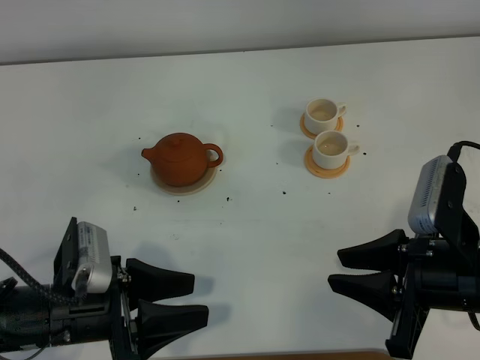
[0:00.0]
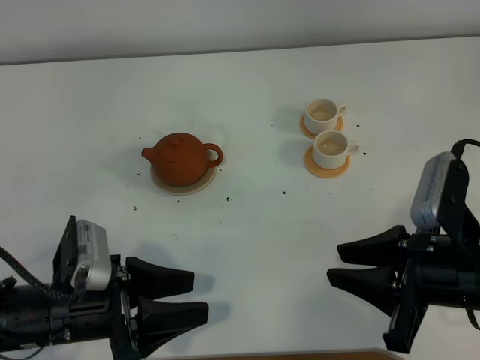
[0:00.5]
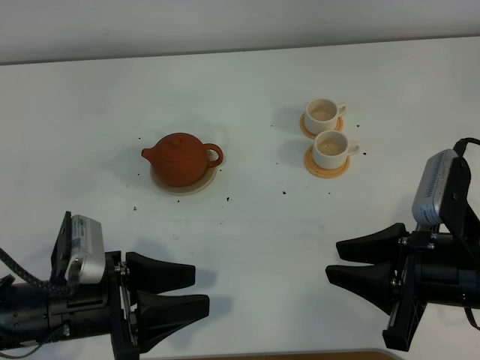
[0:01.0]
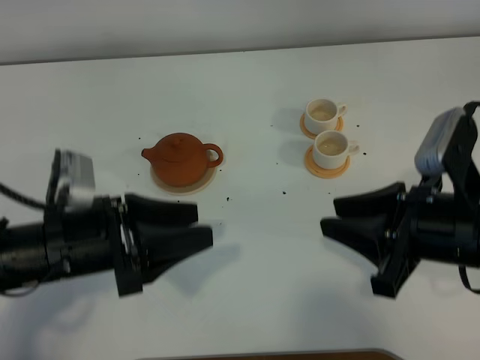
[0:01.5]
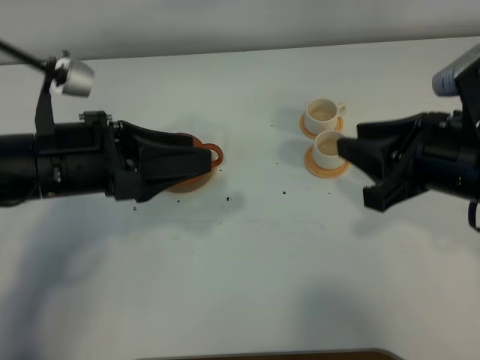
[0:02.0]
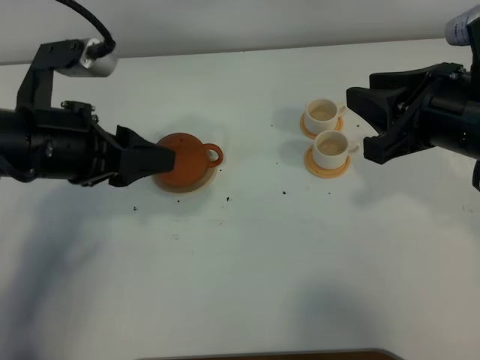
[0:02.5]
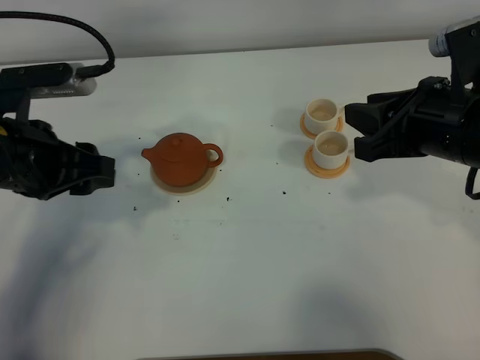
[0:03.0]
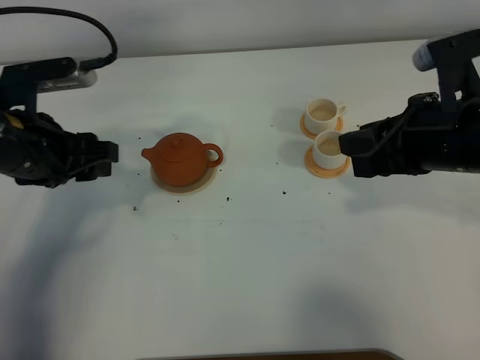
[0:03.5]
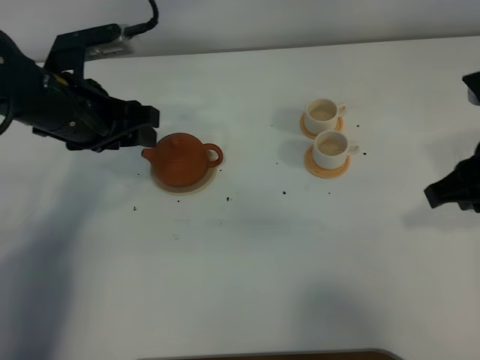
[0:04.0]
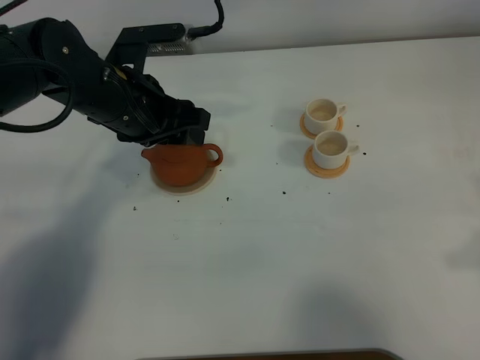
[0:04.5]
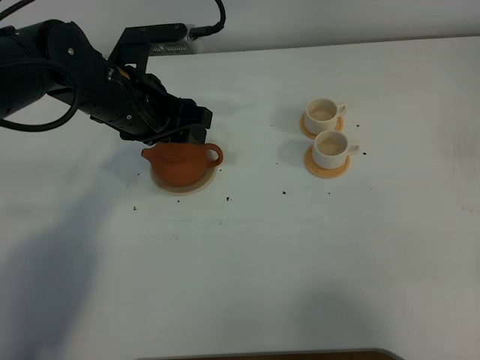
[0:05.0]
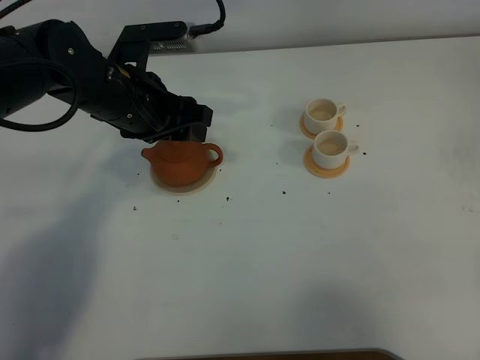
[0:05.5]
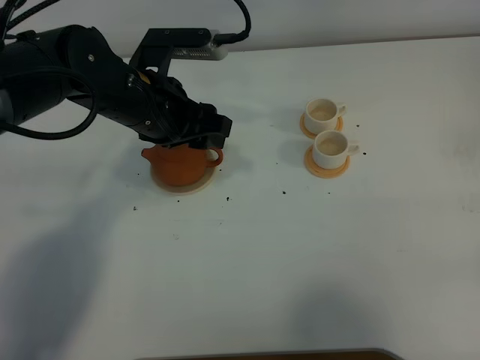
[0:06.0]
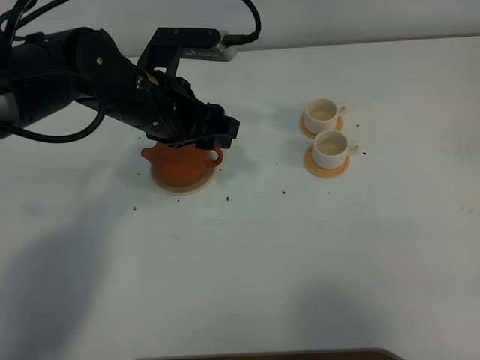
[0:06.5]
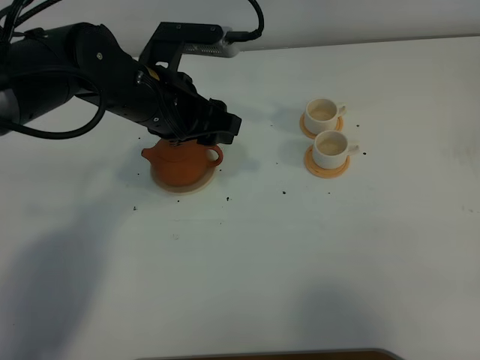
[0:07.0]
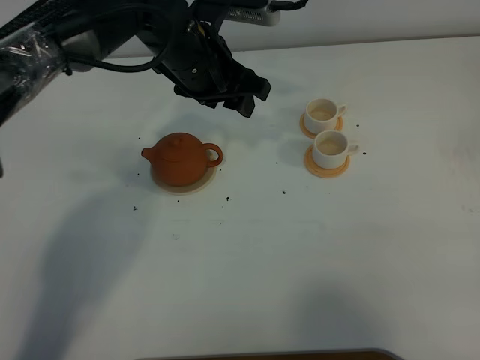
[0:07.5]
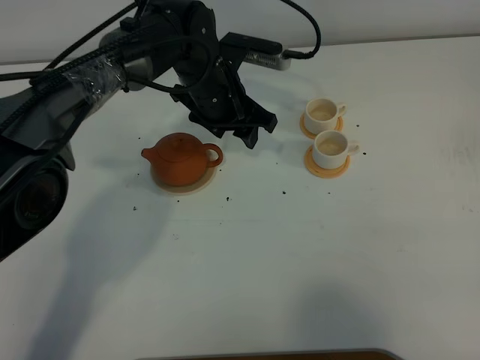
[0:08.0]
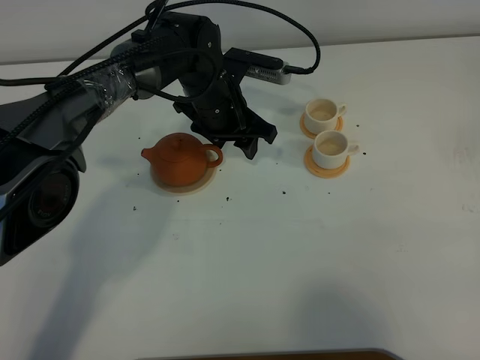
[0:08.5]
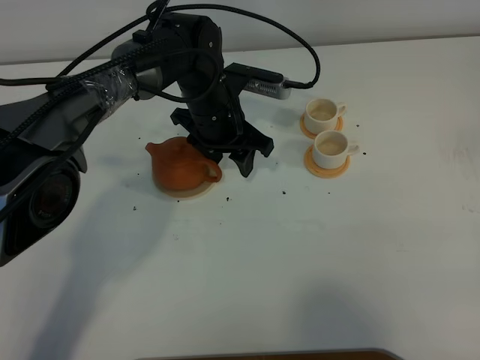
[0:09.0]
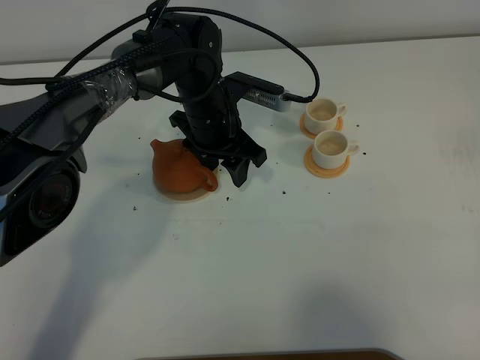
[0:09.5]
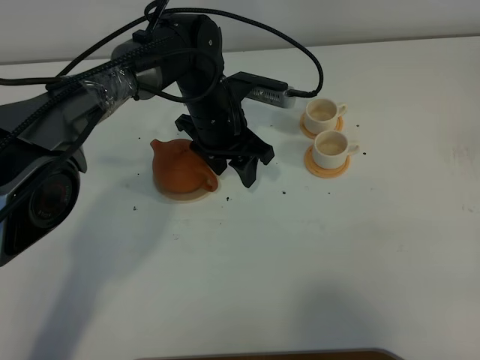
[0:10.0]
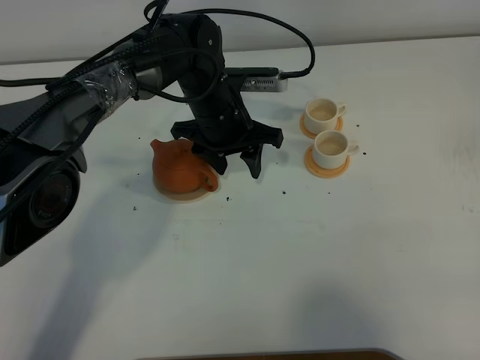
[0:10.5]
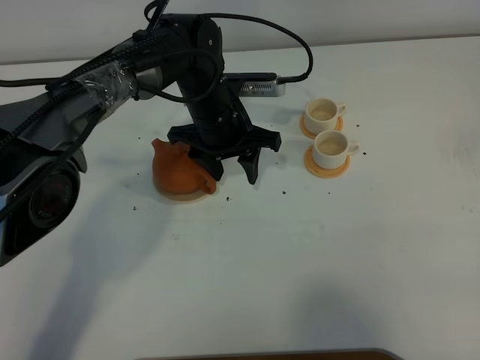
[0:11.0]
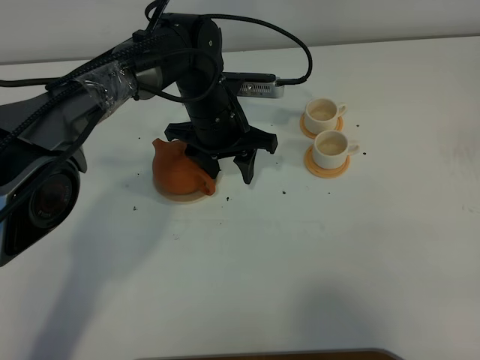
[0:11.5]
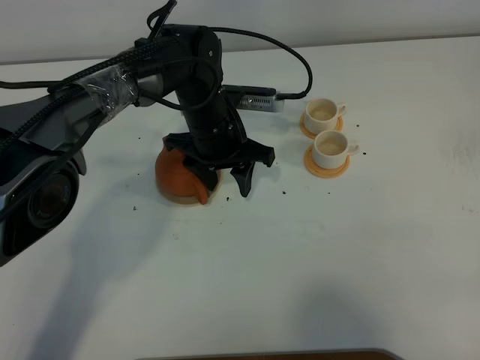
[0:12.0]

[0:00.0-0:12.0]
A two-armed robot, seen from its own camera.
Task of the whole recording: grasp the brown teapot and pour the tea into the two white teacups one by one, put the brown teapot back in its original place.
0.0 to 2.0 s: The right gripper moves upward and forward, about 10 cm, while the left gripper shifts approximately 15 cm upward and forward.
2.0 to 4.0 s: The left gripper goes some 10 cm forward.
4.0 to 6.0 s: The left gripper travels to the right by approximately 10 cm, while the right gripper moves backward and to the right, roughly 20 cm.
6.0 to 8.0 s: The left gripper moves forward, to the right and downward, roughly 15 cm.
8.0 to 10.0 s: The grippers move only a little.
10.0 to 12.0 s: The grippers move only a little.

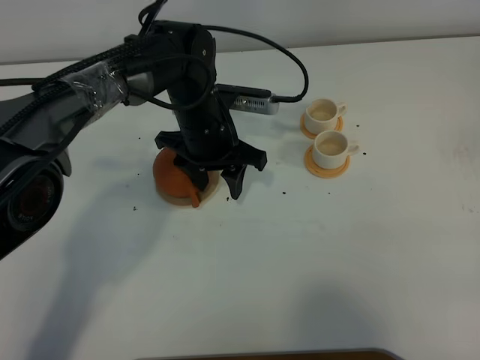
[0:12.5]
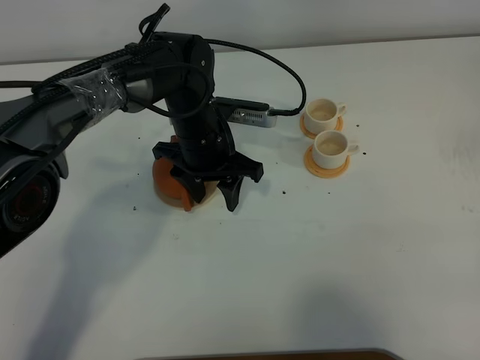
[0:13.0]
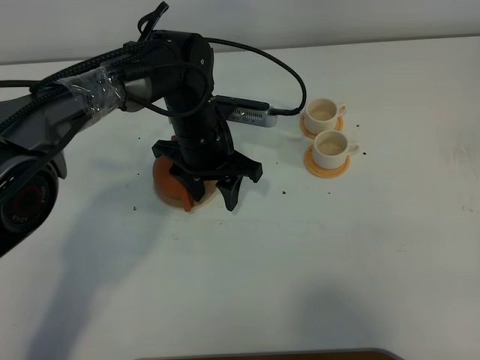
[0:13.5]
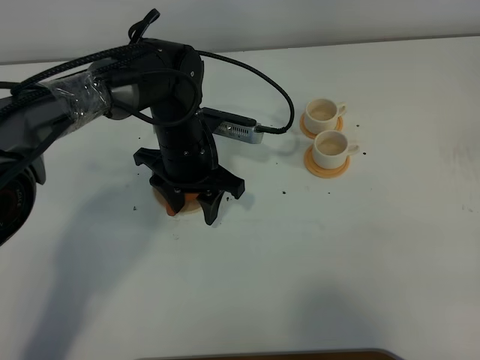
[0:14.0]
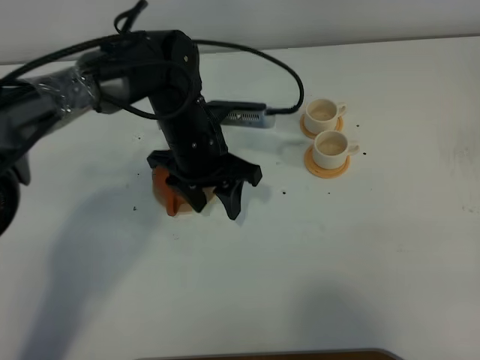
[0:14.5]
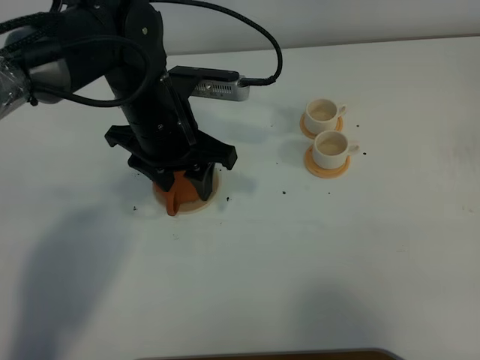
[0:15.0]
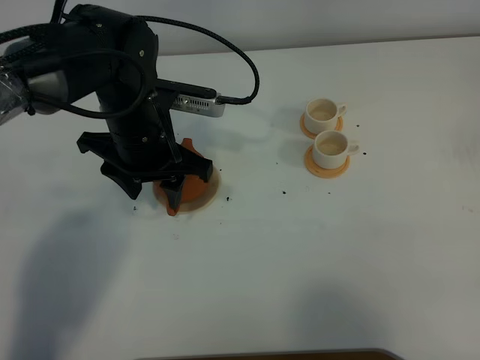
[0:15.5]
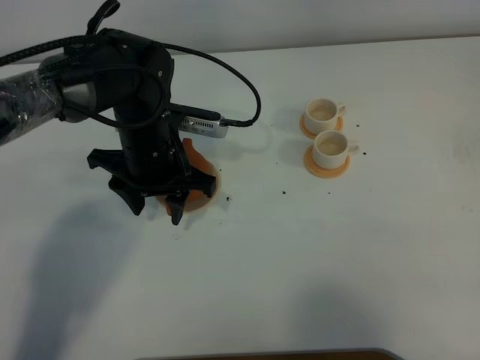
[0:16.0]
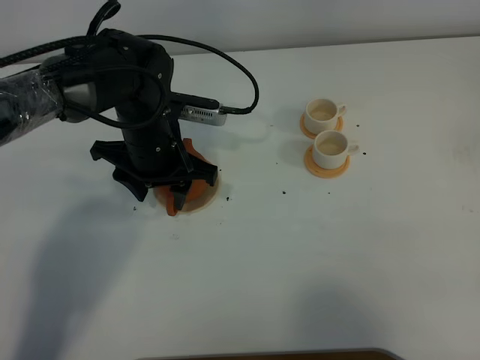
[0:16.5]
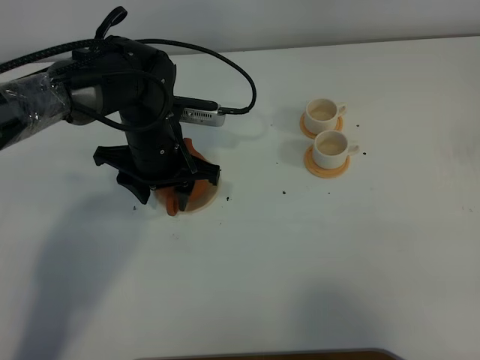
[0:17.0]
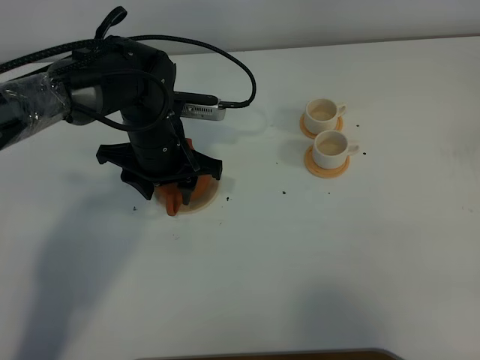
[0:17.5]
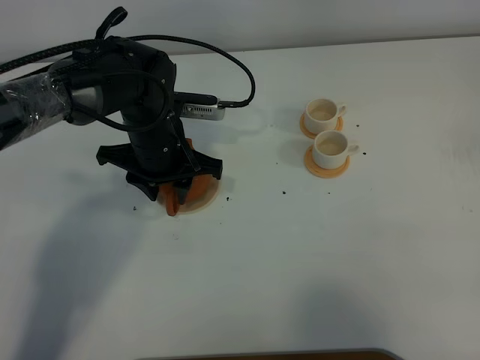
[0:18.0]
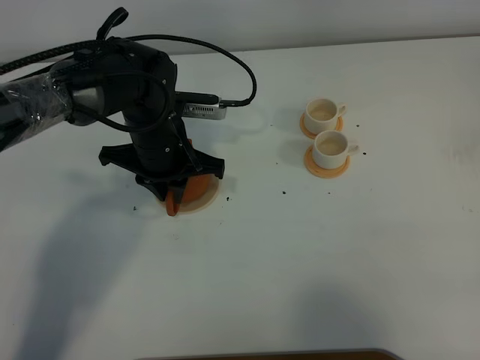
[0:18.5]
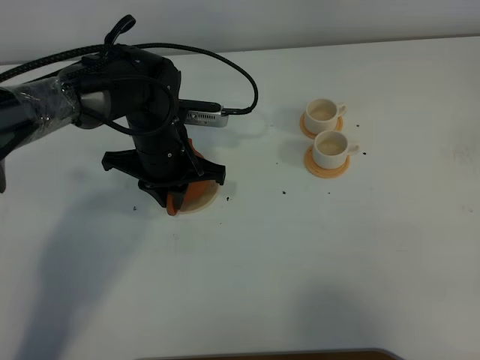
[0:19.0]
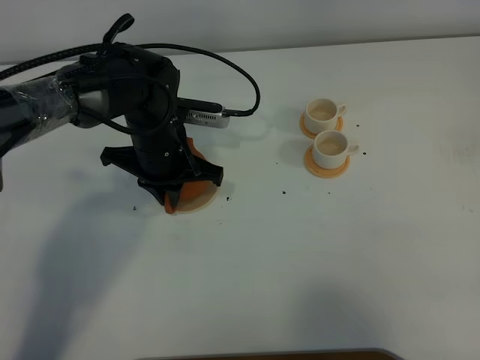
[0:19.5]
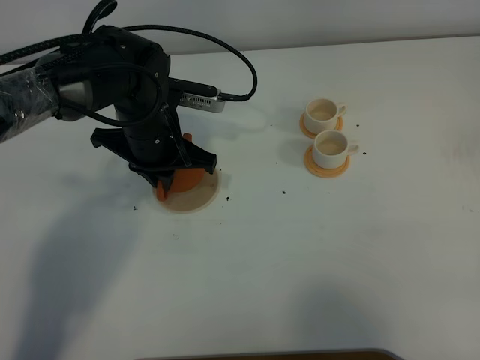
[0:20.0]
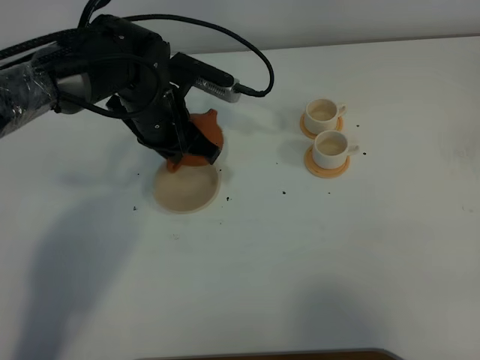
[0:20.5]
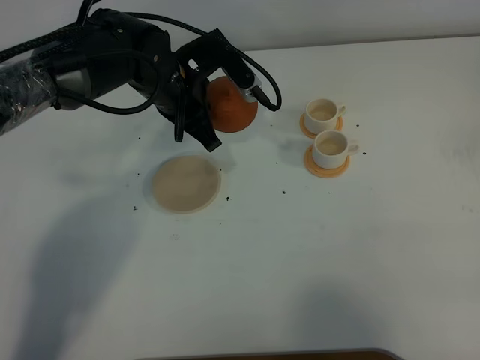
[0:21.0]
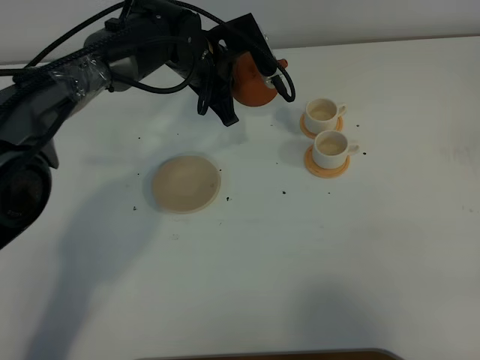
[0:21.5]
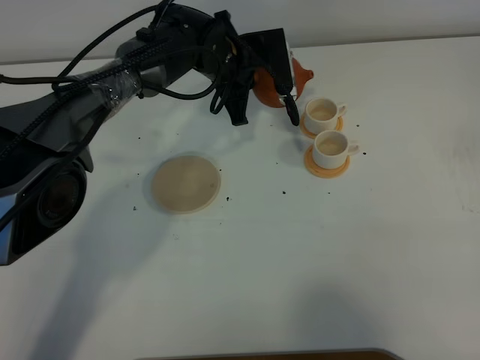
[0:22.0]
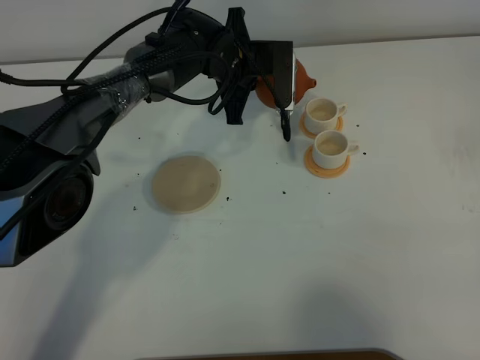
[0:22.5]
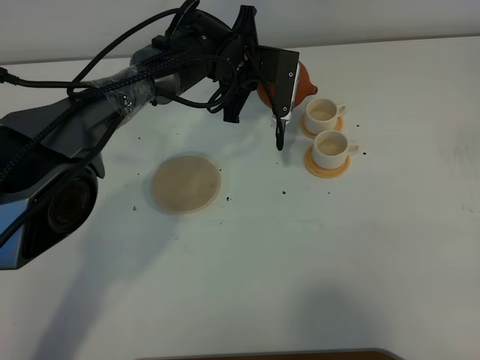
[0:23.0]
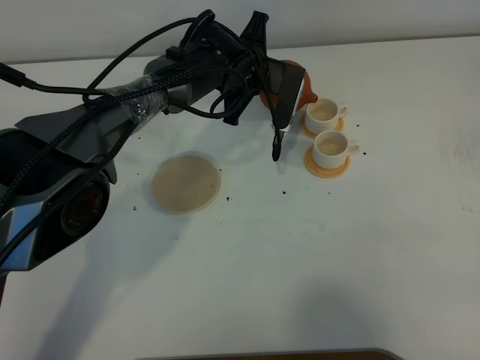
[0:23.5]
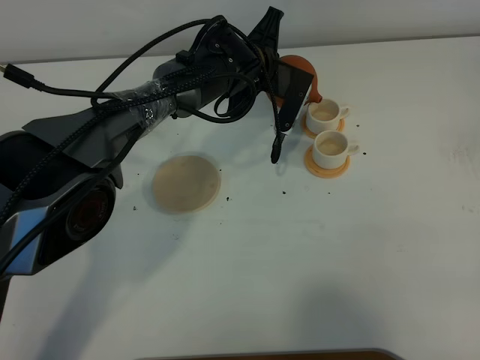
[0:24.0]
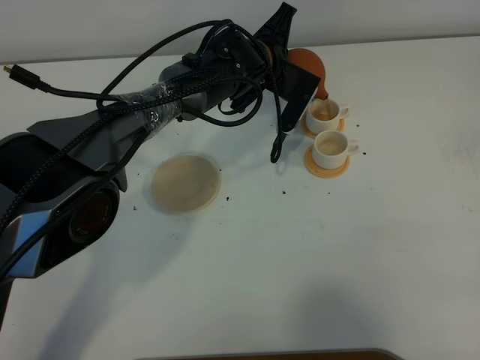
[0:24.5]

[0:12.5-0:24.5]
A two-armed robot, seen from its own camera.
Task of the whole recording: grasp the brown teapot and pour the tea into the two white teacups one by one, put the brown teapot back in its original place.
Step, 12.5 to 20.0 s: Pick up the teapot with the left gripper.
12.5 to 14.5 s: The grippers stay close to where they were, moving slightly.
16.5 to 18.5 s: The left gripper closes.
20.5 to 22.5 s: The left gripper moves forward and to the right, roughly 10 cm.

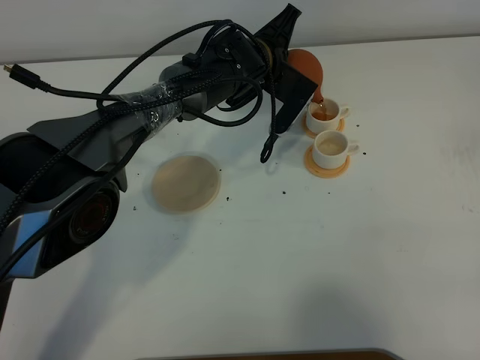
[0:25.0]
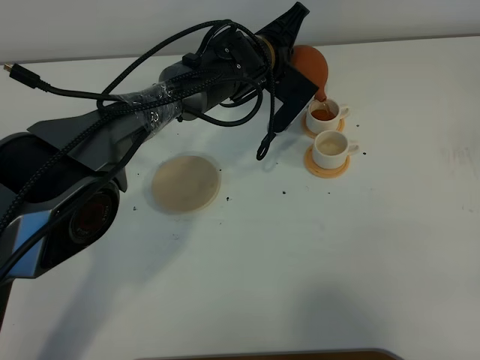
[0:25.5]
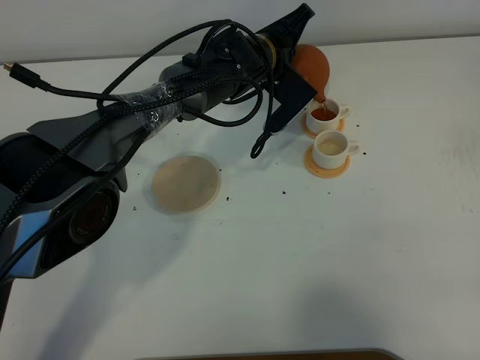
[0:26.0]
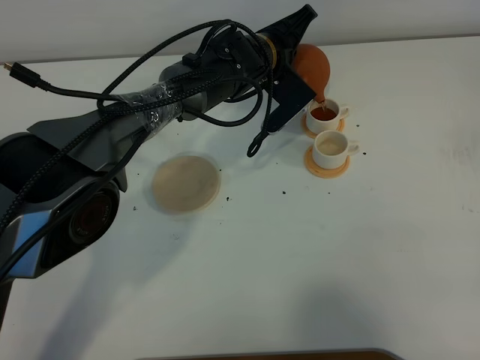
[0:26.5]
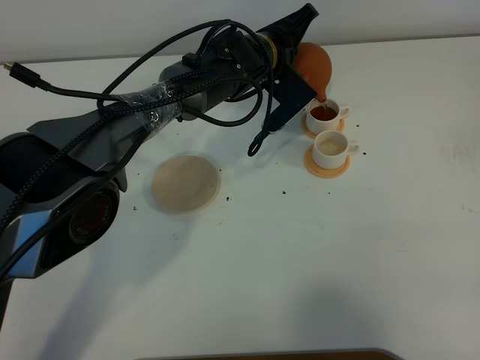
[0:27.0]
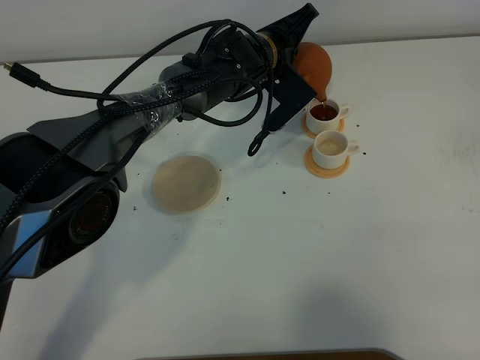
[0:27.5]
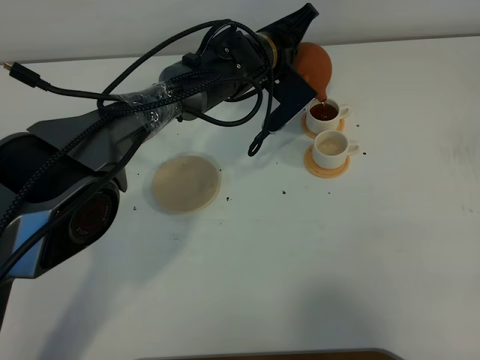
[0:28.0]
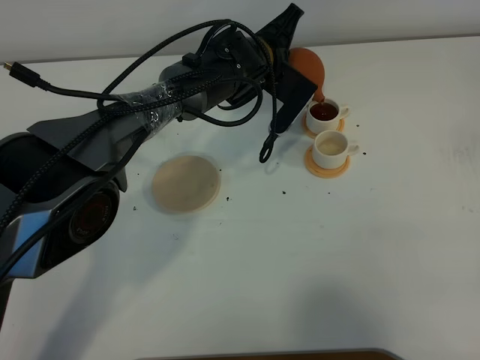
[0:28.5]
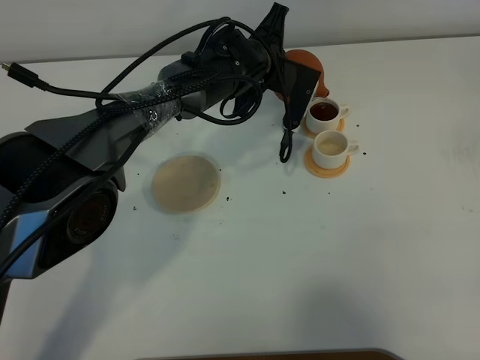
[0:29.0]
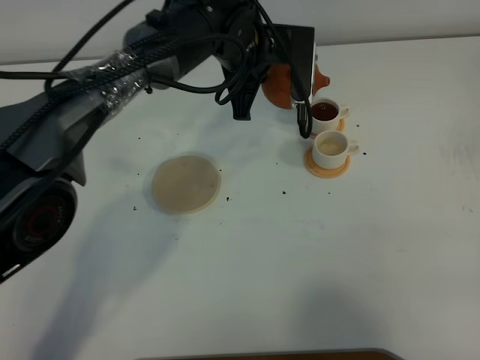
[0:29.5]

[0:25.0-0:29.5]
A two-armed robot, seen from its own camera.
Task of the whole recording: grasp the brown teapot and pour the tea into the two white teacups one by one, put the brown teapot back in its original place.
25.0 to 27.0 s: The grippers move only a little.
27.0 to 29.5 s: The left gripper moves upward, roughly 5 cm.
